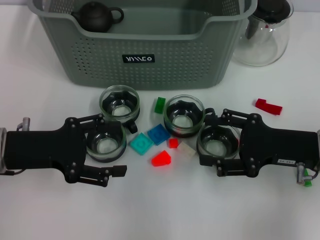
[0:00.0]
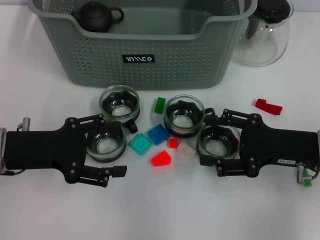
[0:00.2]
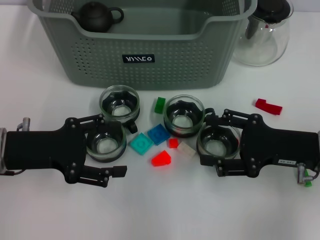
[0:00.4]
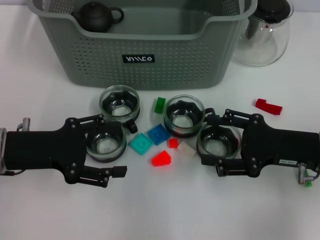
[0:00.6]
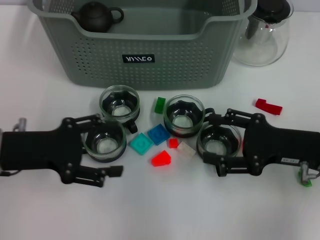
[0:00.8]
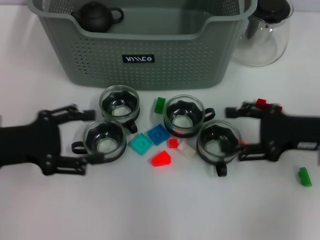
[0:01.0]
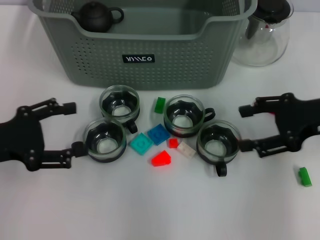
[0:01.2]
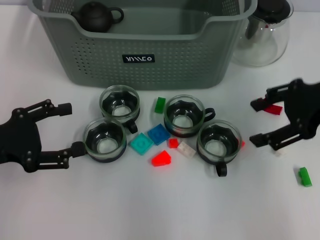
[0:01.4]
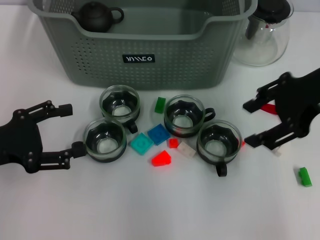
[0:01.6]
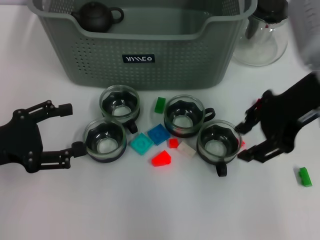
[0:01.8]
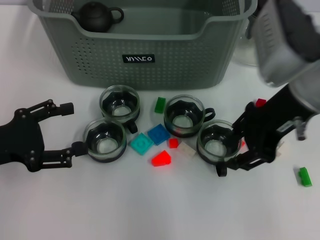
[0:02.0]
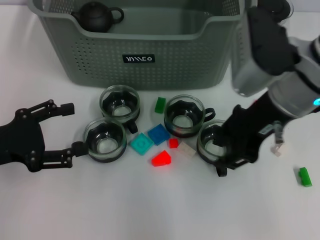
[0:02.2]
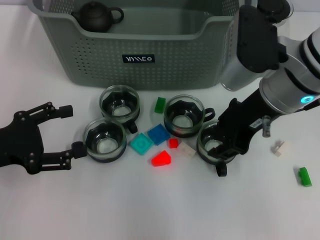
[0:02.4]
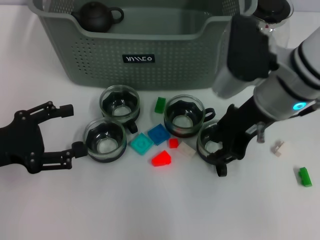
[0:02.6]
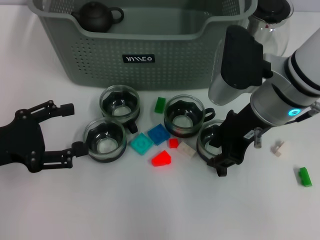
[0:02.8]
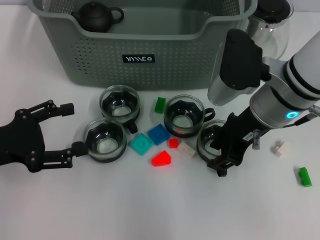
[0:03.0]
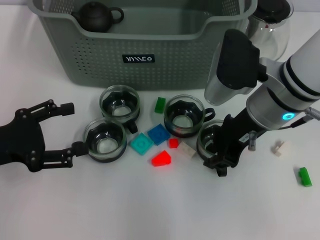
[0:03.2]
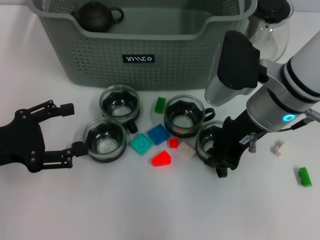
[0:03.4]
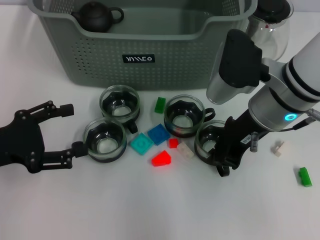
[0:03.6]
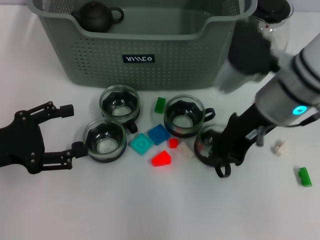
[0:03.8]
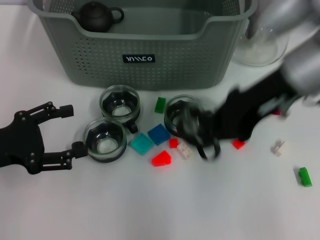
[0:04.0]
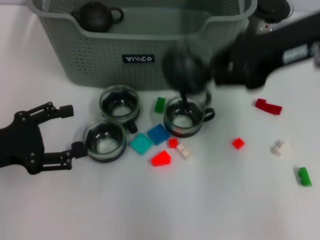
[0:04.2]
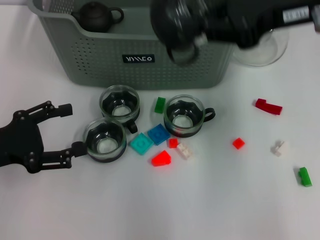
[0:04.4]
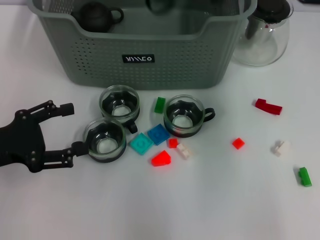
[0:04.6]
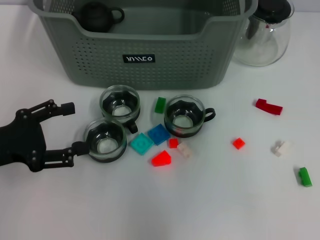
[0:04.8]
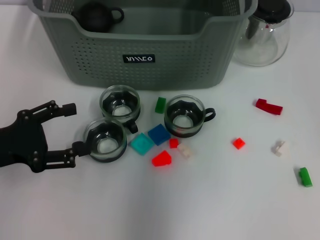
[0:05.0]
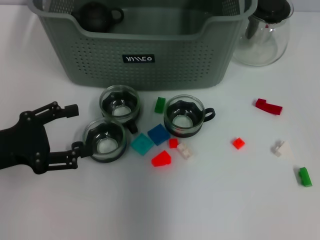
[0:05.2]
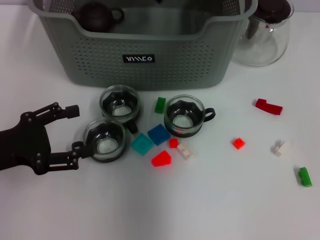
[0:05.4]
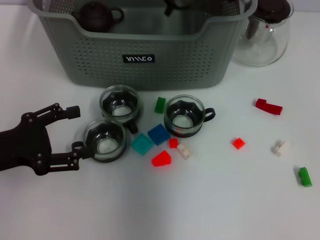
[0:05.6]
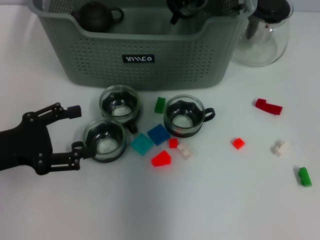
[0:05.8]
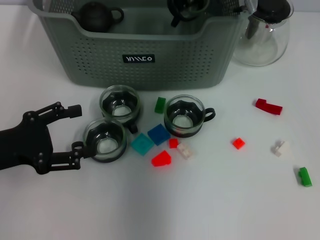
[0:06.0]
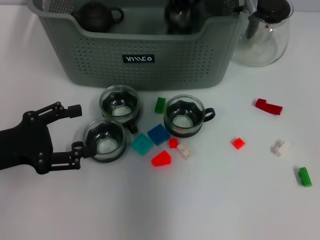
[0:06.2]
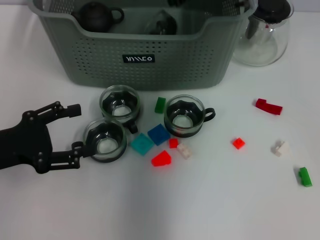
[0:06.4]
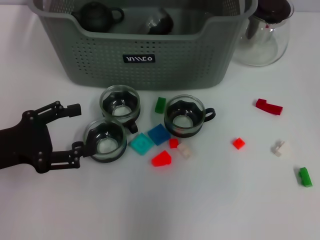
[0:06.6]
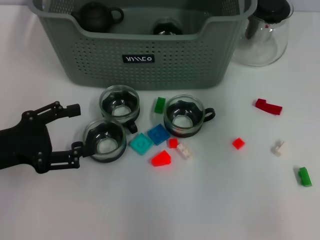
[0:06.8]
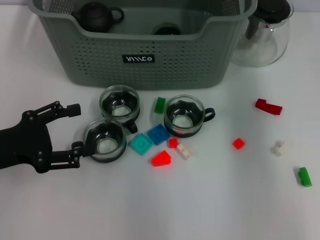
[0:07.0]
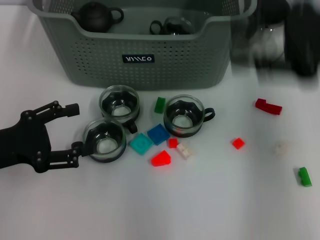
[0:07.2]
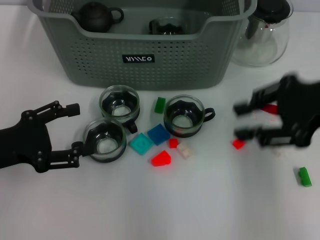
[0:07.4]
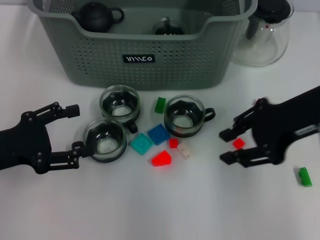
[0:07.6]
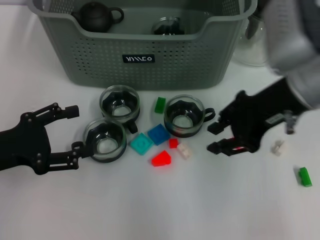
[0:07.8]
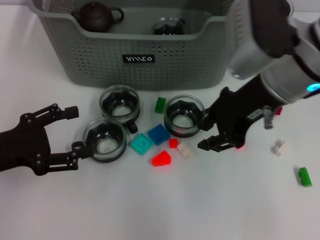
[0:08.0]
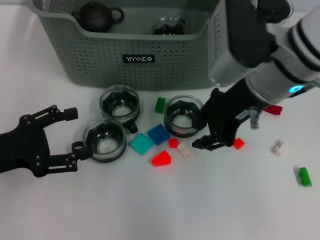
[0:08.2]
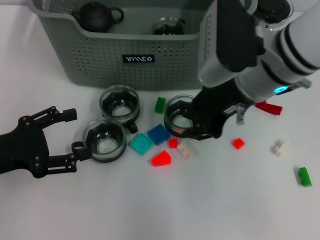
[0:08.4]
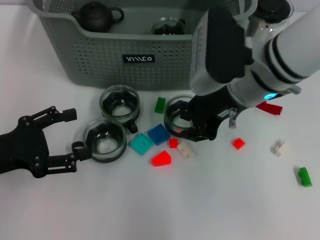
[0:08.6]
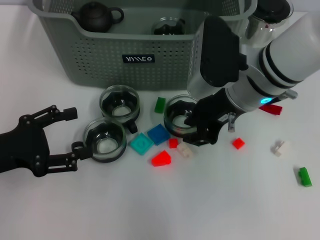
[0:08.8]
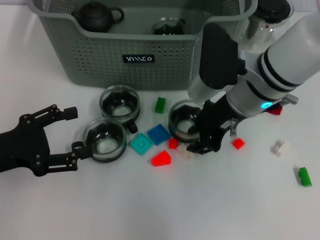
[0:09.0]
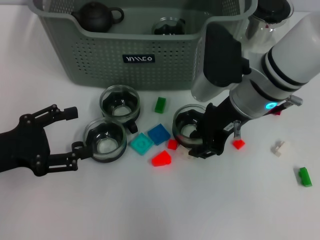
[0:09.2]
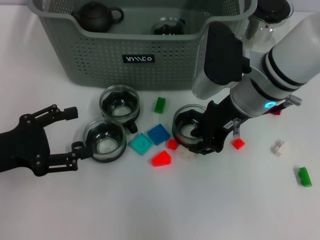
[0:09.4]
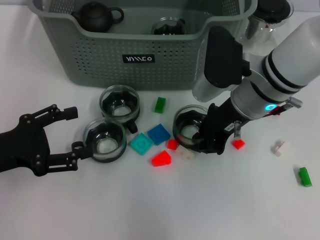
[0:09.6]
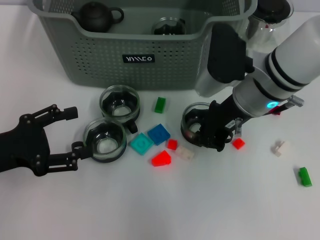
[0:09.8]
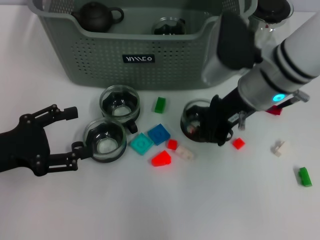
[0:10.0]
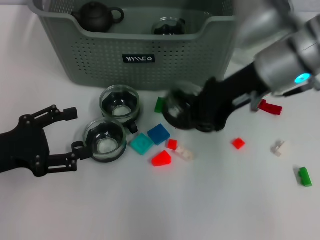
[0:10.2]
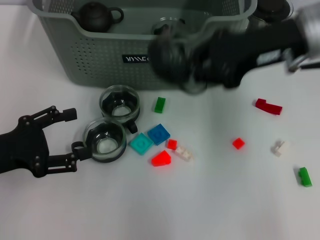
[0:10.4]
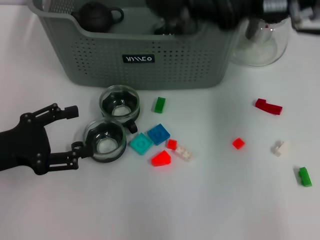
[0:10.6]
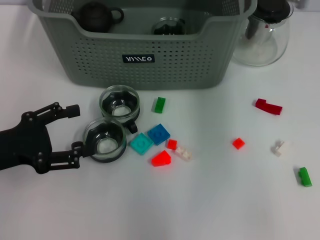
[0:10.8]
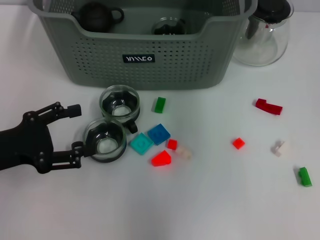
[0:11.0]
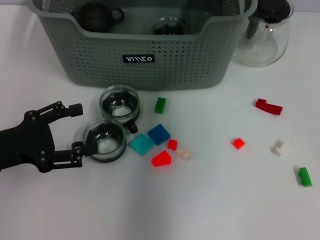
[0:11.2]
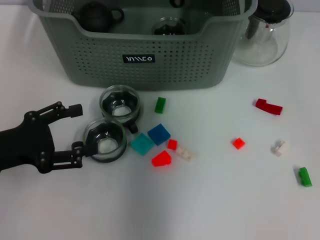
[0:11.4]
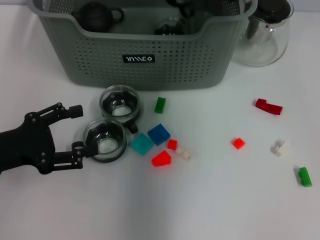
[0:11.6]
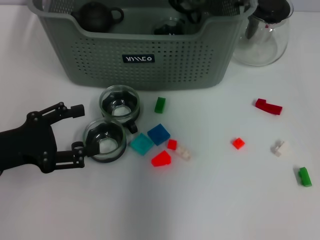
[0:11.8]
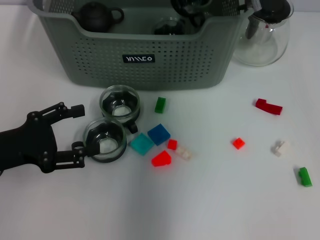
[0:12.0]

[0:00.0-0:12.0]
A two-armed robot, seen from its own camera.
Task of the whole recording: pick up the teacup on the table and place it into the storage bin, pick up the block on the table and place it into the storage bin.
Step, 0:00.0 to 0:03.4: Grasp the cup with right gripper.
Step, 0:03.6 to 0:06.4: Place the cup in the storage box with right gripper.
Step, 0:06.8 to 0:09.6: Grasp the cup with right gripper.
0:00.0 to 0:01.6: The right gripper heads upward, covering some 15 cm, while the left gripper shifts by approximately 5 cm.
0:01.6 to 0:03.0: The right gripper is displaced to the left and downward by roughly 10 cm, and closes its fingers.
0:03.0 to 0:04.4: The right gripper goes some 15 cm upward and to the right, and closes its fingers.
0:04.4 to 0:06.0: The right gripper travels forward, to the left and downward by some 20 cm.
0:06.0 to 0:07.6: The right gripper travels backward and to the right by about 20 cm, and opens its fingers.
0:07.6 to 0:09.0: The right gripper travels to the left and downward by roughly 10 cm.
0:09.0 to 0:10.4: The right gripper shifts about 10 cm upward and to the right, and closes up.
0:10.4 to 0:12.0: The right gripper shifts some 15 cm forward and to the left.

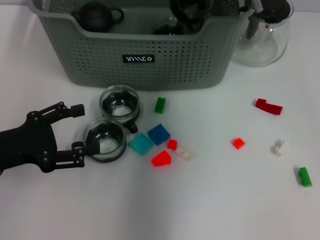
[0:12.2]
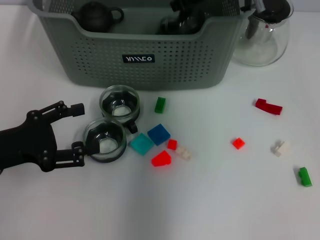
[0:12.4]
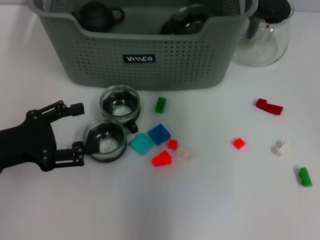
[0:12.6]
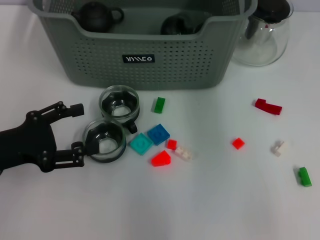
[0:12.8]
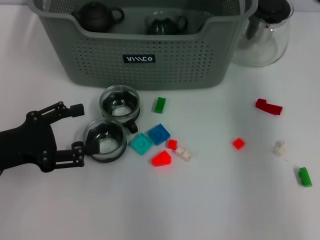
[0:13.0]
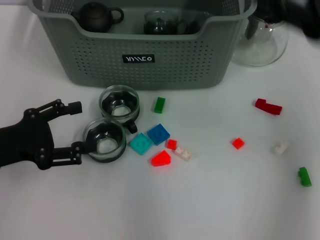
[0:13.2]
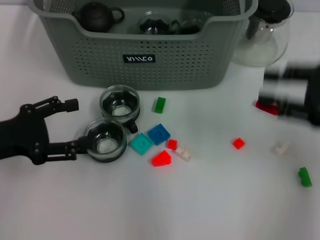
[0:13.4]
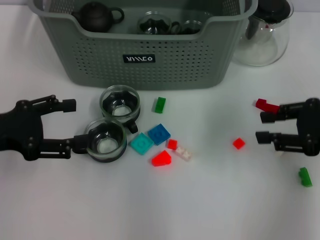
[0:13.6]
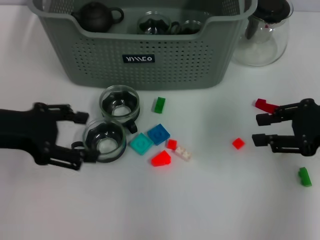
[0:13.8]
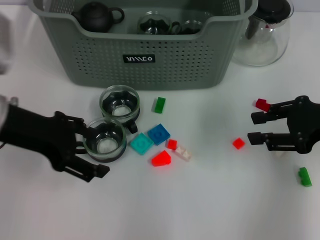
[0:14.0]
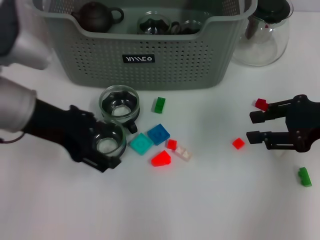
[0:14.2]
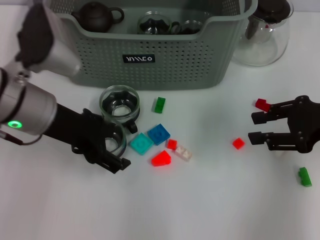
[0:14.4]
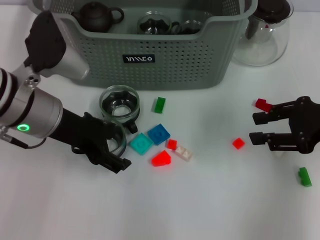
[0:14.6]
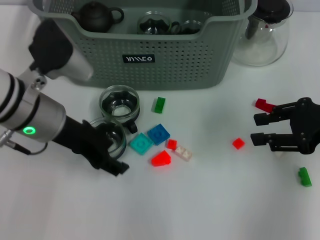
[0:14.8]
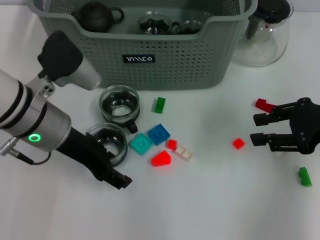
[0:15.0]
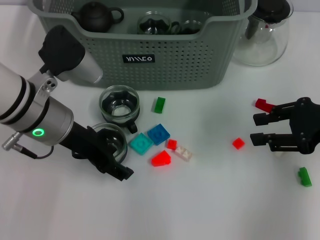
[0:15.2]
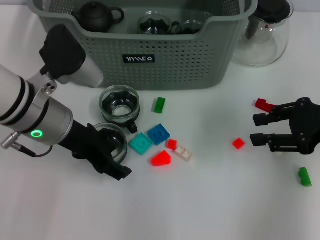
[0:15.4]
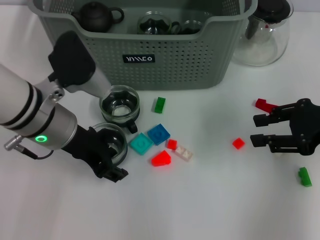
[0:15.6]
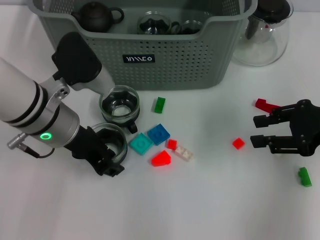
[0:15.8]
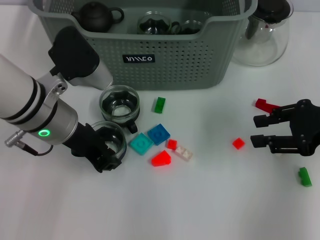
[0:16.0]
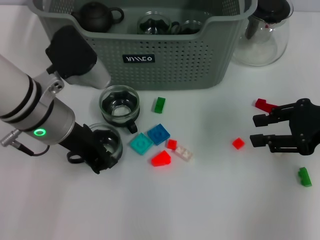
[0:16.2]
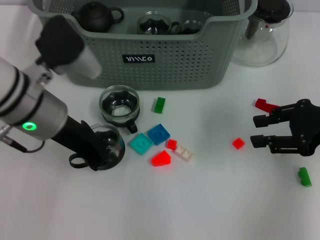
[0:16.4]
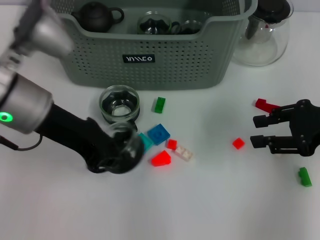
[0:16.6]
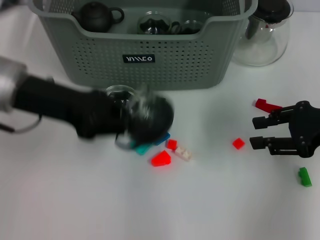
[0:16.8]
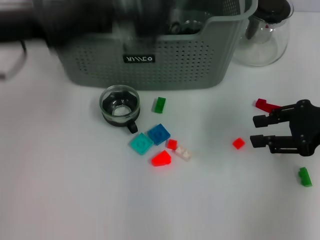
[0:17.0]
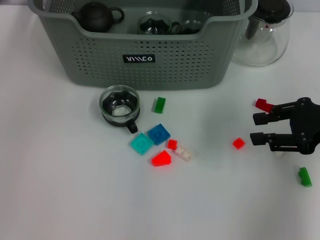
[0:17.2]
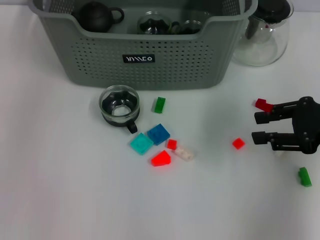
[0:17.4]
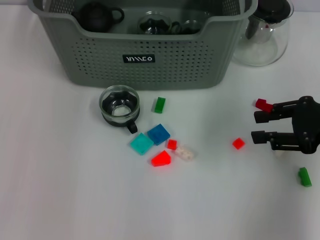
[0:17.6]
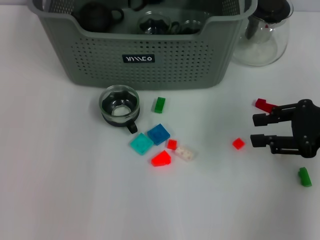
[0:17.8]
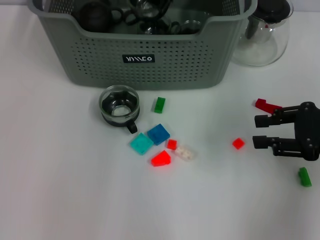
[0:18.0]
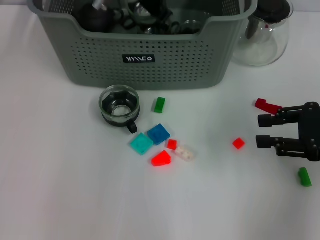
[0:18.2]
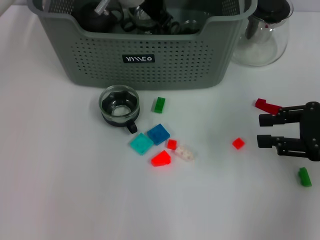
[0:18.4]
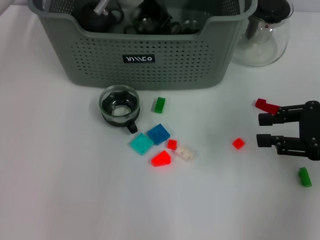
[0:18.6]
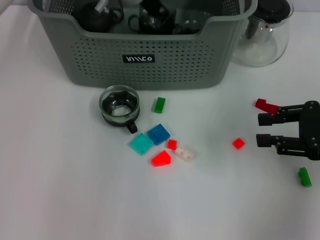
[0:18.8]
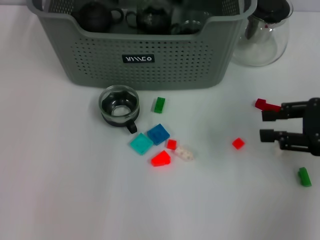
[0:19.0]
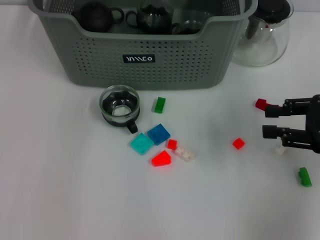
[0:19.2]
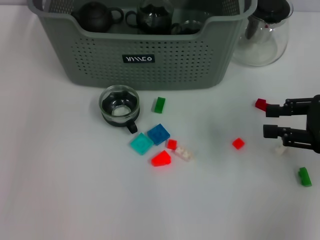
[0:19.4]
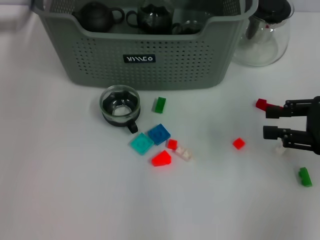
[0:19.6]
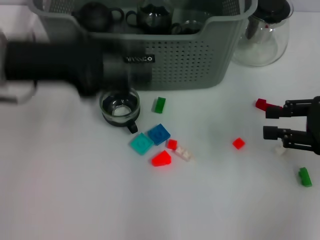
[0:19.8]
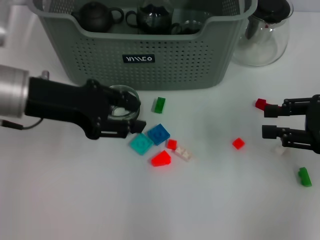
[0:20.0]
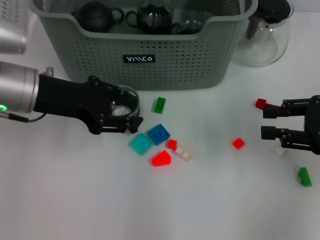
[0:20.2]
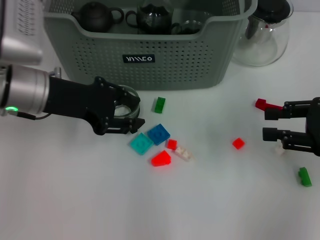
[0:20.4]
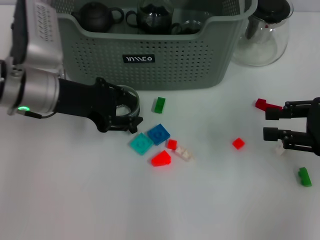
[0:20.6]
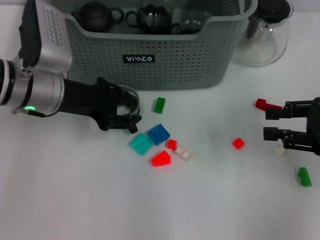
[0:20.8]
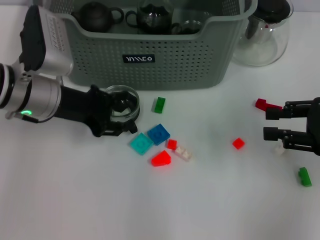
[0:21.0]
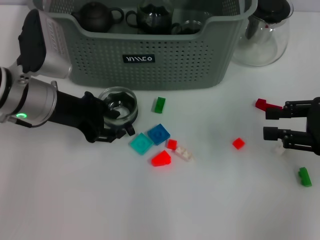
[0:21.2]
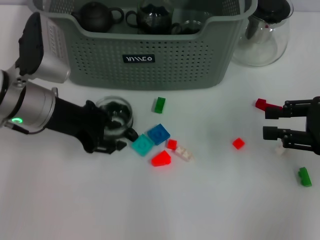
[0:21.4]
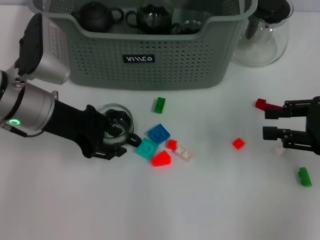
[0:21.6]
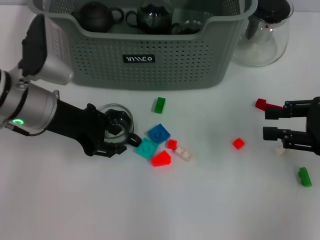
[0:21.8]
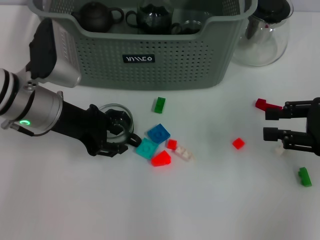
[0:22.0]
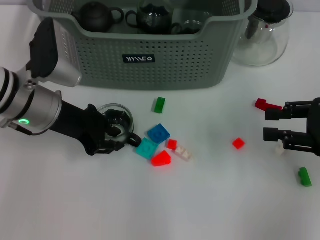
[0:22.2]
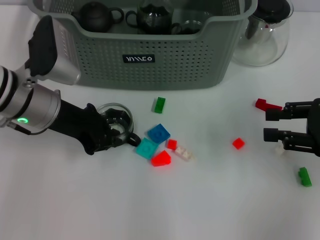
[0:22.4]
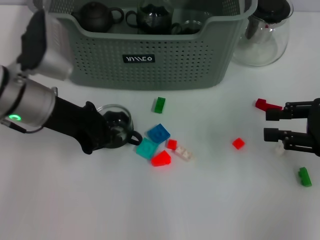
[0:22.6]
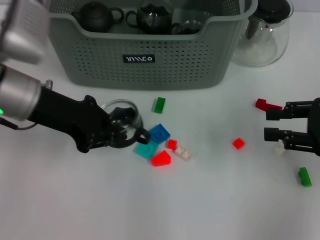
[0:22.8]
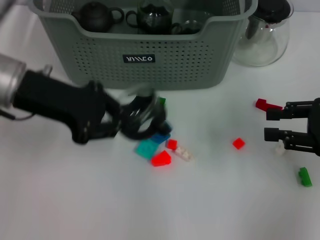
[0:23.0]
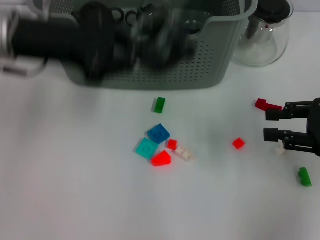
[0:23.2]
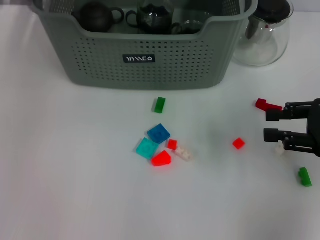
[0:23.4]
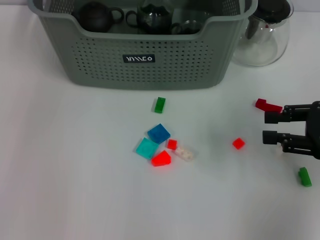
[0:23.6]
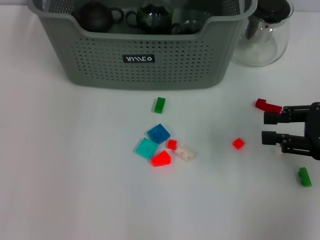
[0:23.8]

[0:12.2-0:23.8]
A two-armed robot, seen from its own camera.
Task of the whole recording: pick up the teacup on the table and place it into the storage bin, pick up the block on the table and place it into the storage bin.
Step, 0:12.8 to 0:16.2: Grasp the cup with left gripper.
Step, 0:16.4 to 0:19.0: Place the cup in the storage box with left gripper.
Step, 0:19.2 to 0:22.4: Grasp the cup with left gripper.
0:12.2 to 0:13.6: The right gripper heads to the right and backward, covering roughly 30 cm, and opens its fingers.
0:13.6 to 0:15.0: The left gripper travels to the right and forward by approximately 15 cm.
0:15.0 to 0:16.6: The left gripper closes its fingers.
0:16.6 to 0:18.0: The left gripper heads forward and to the right, covering some 20 cm.
0:18.0 to 0:19.4: The left gripper goes some 15 cm backward, to the left and upward, and opens its fingers.
0:19.4 to 0:21.0: The left gripper heads downward, covering roughly 20 cm.
0:21.0 to 0:22.4: The grippers stay close to where they were, moving slightly.
0:22.4 to 0:23.8: The left gripper is displaced upward and forward by roughly 25 cm.
